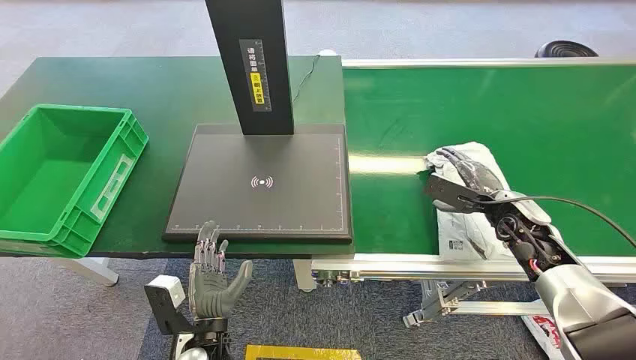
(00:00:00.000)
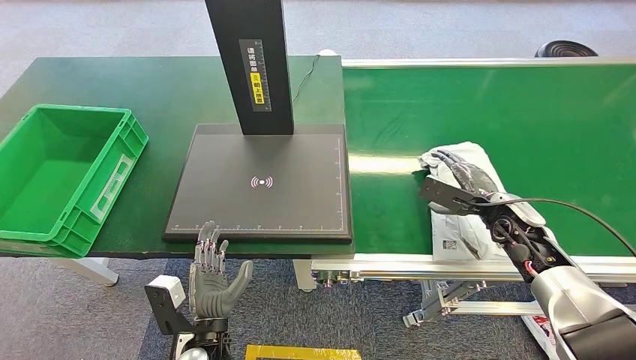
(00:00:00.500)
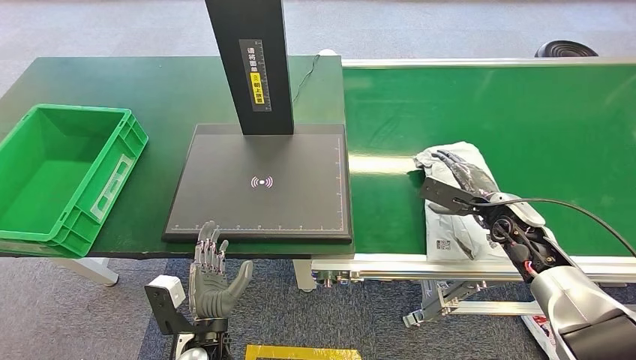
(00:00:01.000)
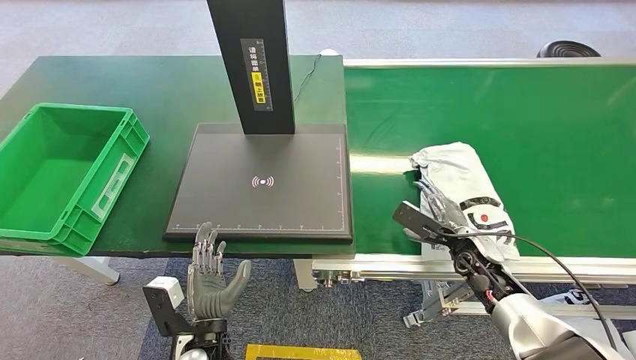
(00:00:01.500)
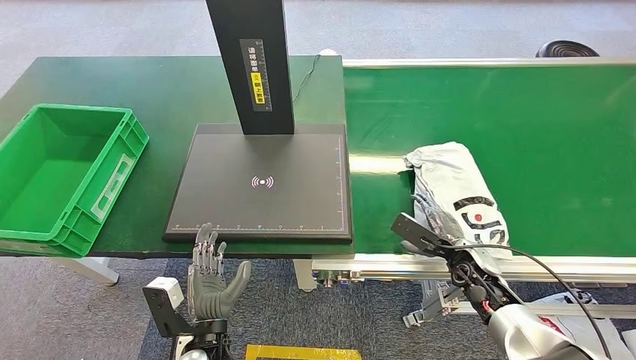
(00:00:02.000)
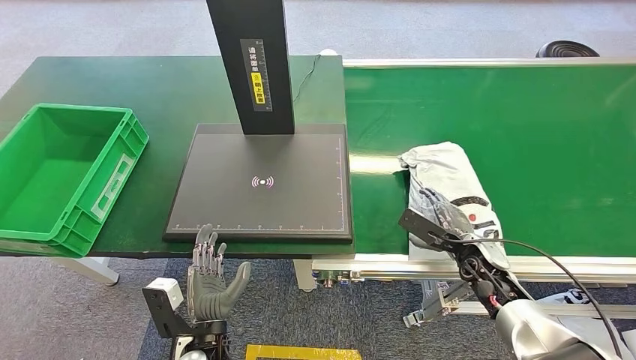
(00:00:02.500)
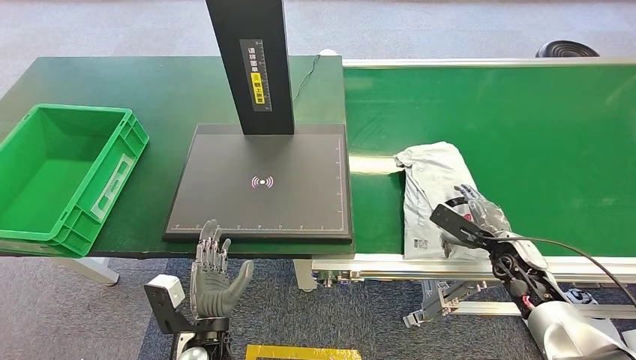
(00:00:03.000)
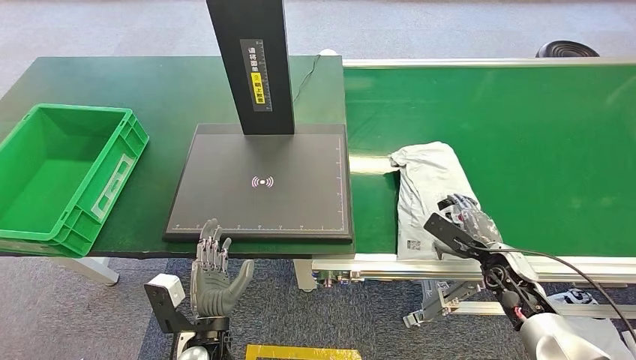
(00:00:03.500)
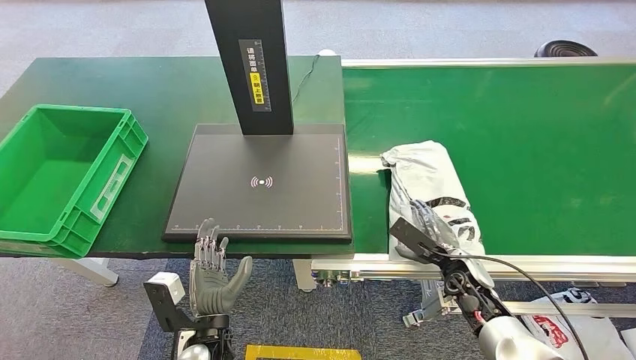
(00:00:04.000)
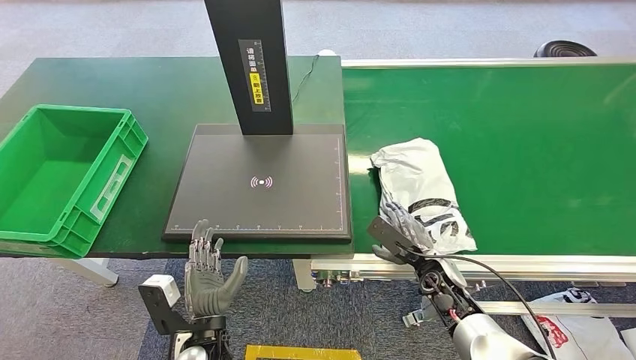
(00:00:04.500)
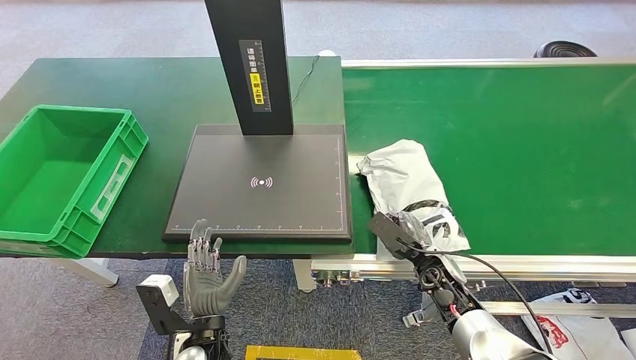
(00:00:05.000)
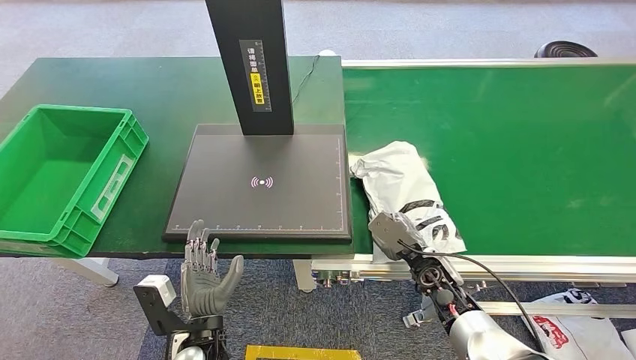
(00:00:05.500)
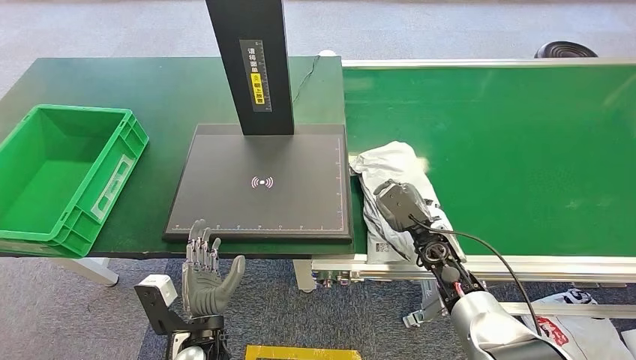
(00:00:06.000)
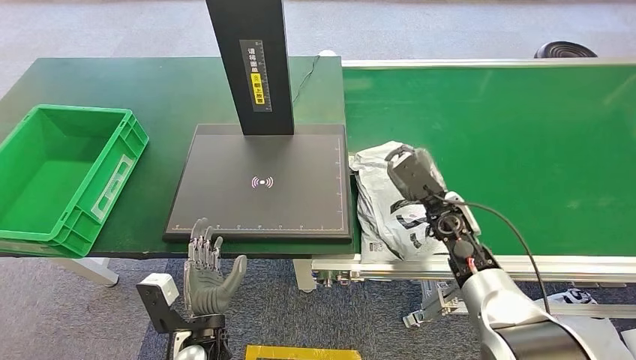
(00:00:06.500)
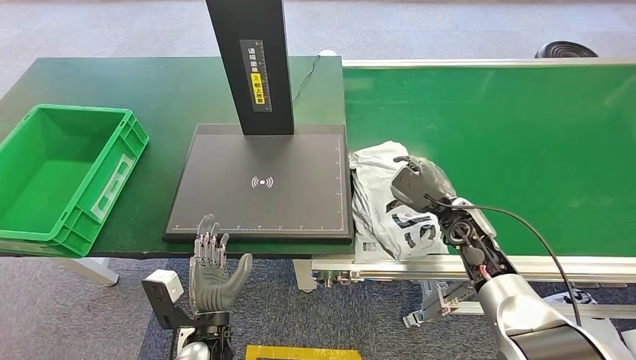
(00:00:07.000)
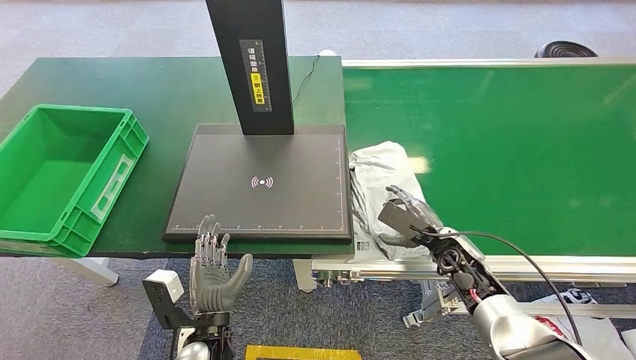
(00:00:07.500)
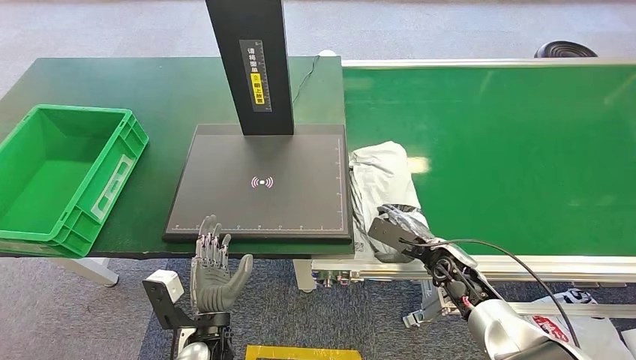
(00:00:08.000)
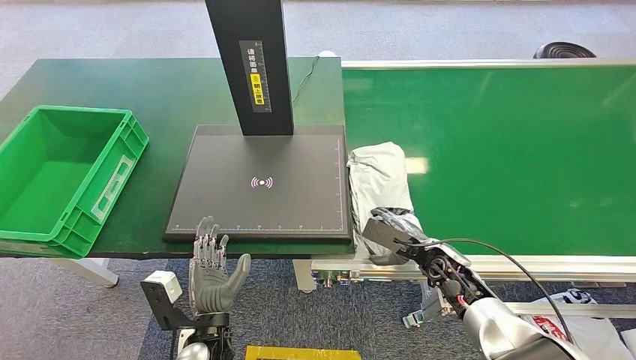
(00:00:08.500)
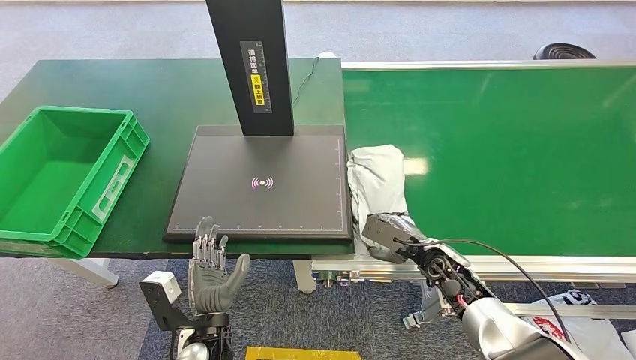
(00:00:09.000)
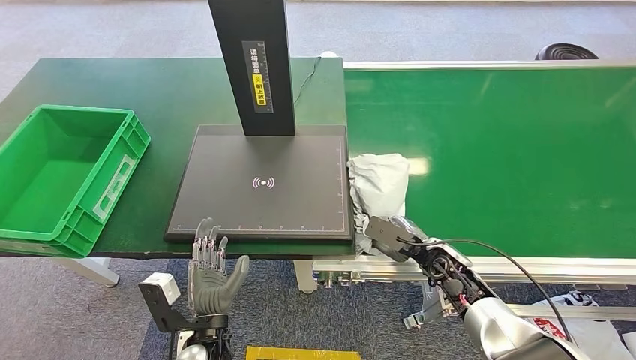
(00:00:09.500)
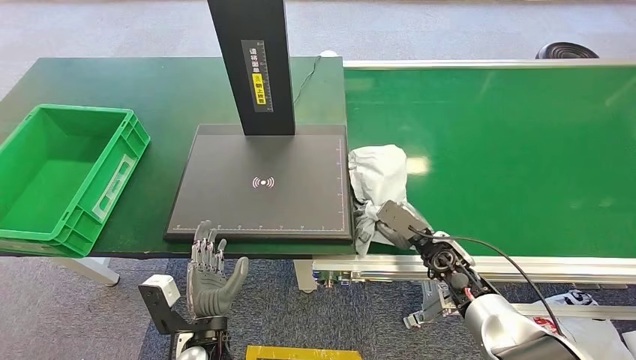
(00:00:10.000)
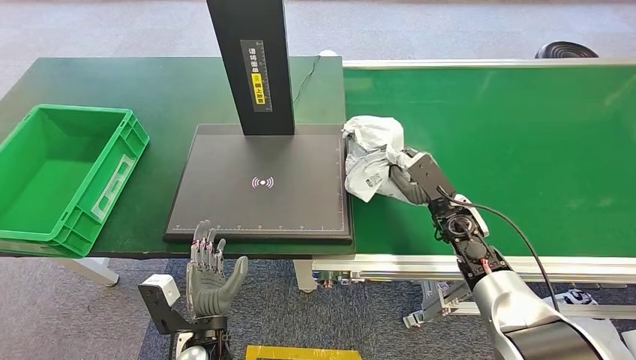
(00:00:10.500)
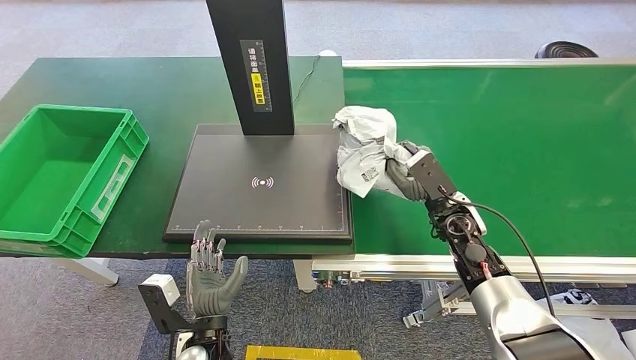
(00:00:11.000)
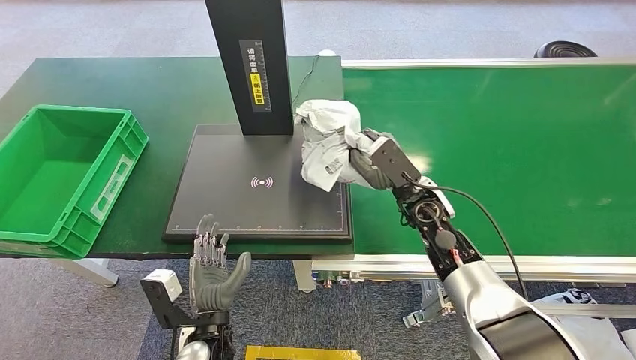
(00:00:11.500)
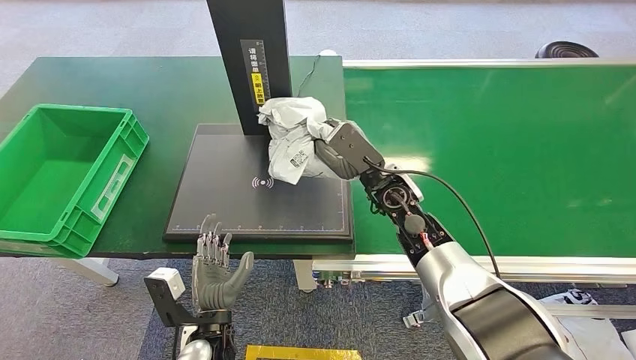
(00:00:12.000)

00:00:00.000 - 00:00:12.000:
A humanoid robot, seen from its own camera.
Step, 00:00:00.000 - 00:00:10.500: Pick up the package from the conveyor belt.
00:00:02.000 - 00:00:04.000: The right hand moves roughly 5 cm to the right and comes back.
00:00:04.000 - 00:00:06.000: The right hand heads to the left, covering about 5 cm.
00:00:08.000 - 00:00:10.000: There are only small adjustments of the hands.
00:00:10.000 - 00:00:12.000: The right hand travels to the left, upward and forward by roughly 20 cm.

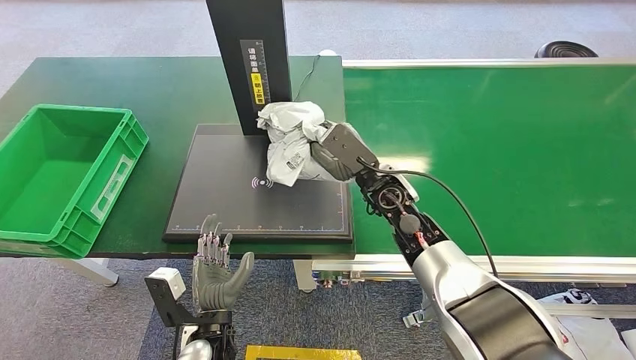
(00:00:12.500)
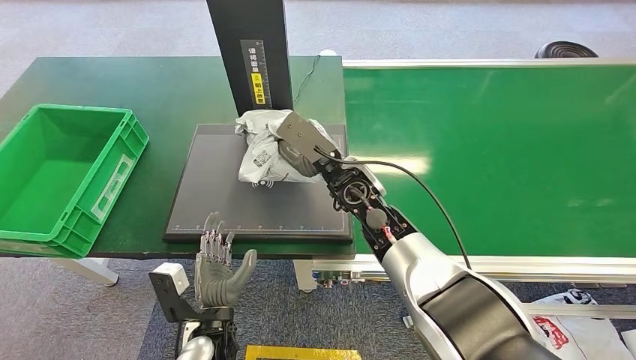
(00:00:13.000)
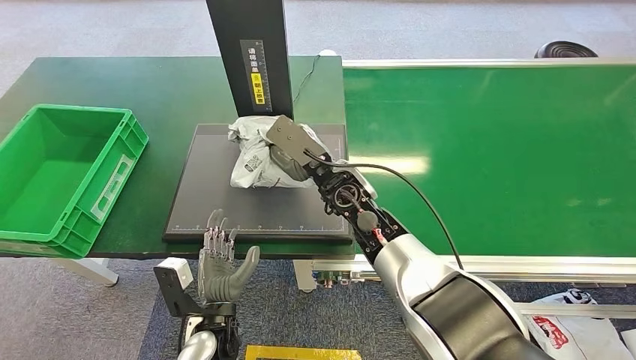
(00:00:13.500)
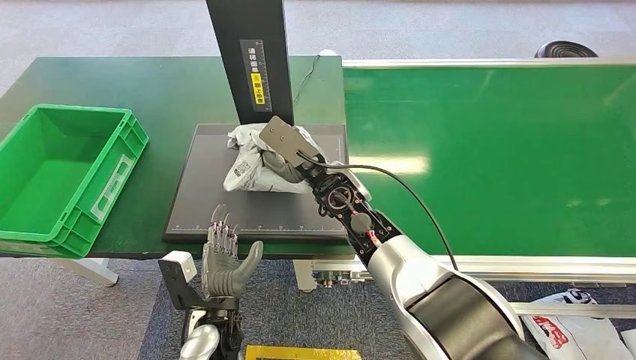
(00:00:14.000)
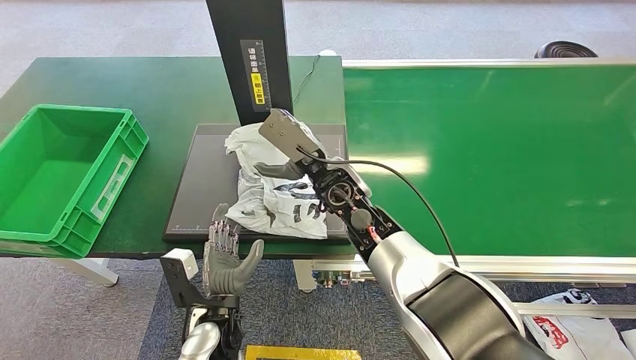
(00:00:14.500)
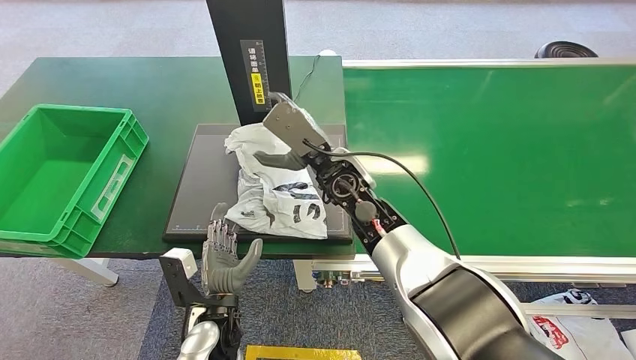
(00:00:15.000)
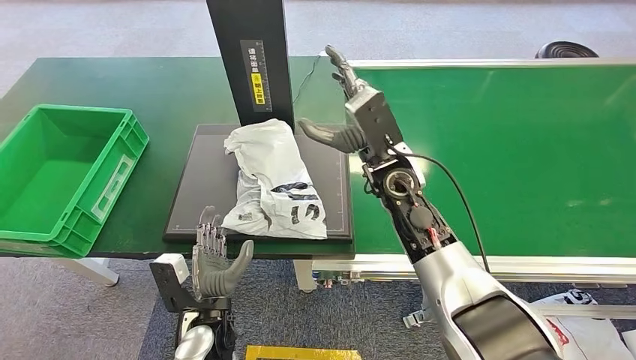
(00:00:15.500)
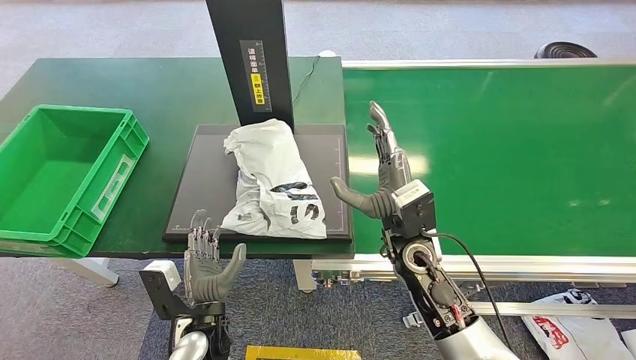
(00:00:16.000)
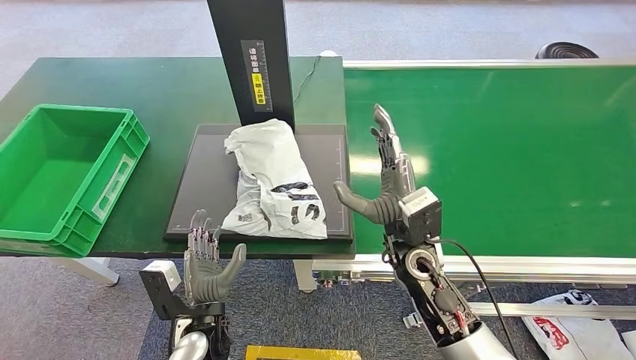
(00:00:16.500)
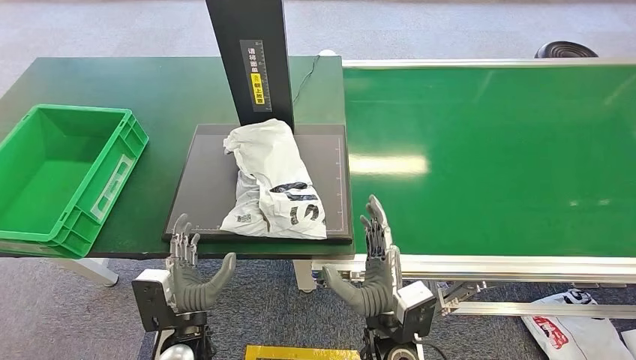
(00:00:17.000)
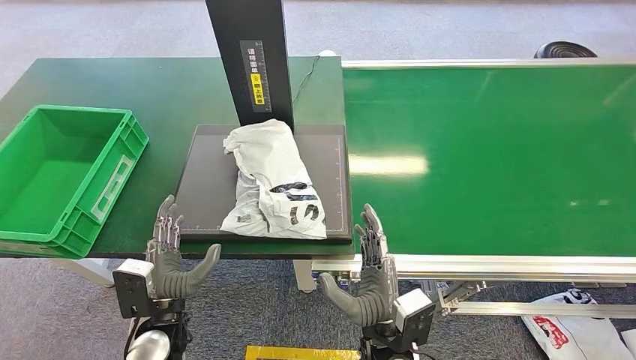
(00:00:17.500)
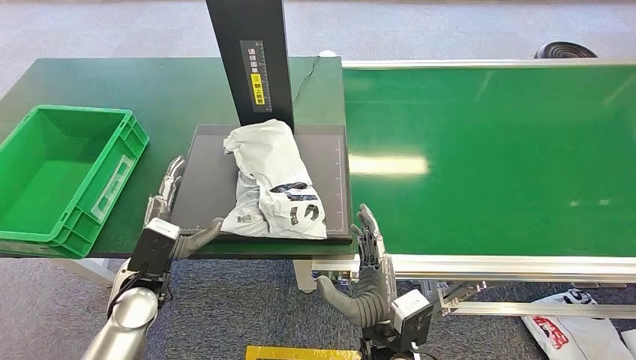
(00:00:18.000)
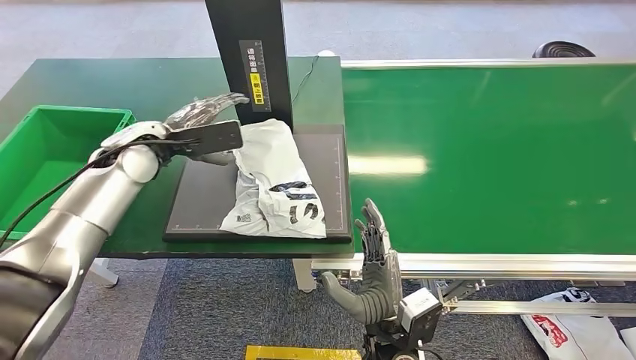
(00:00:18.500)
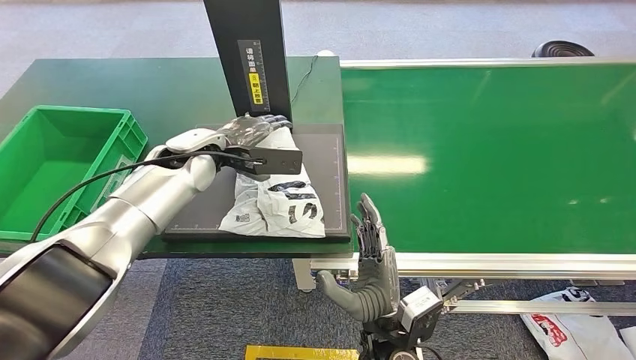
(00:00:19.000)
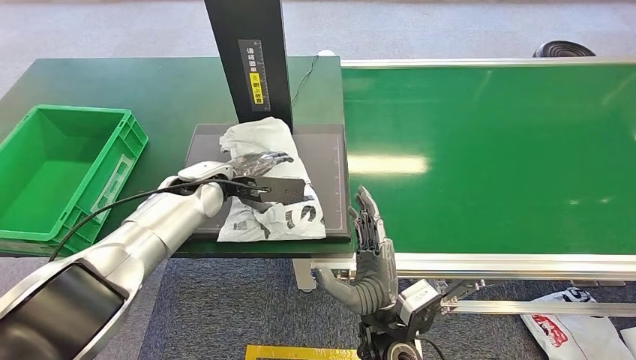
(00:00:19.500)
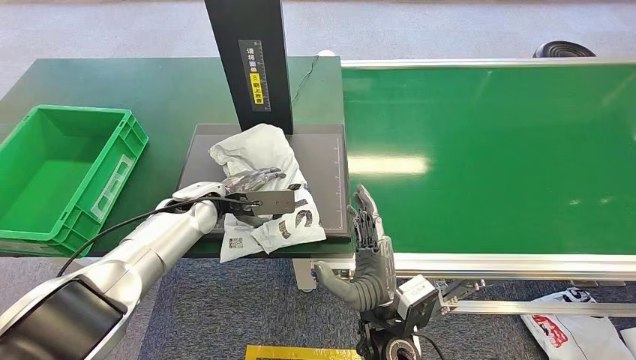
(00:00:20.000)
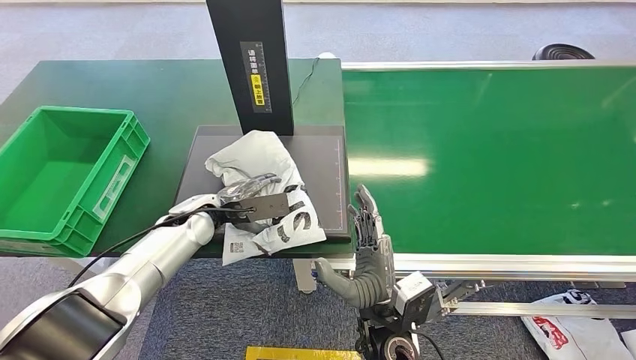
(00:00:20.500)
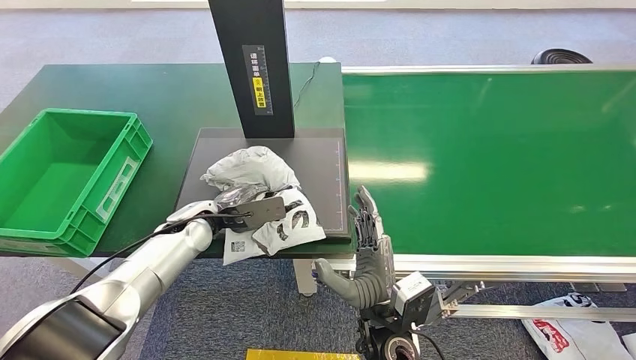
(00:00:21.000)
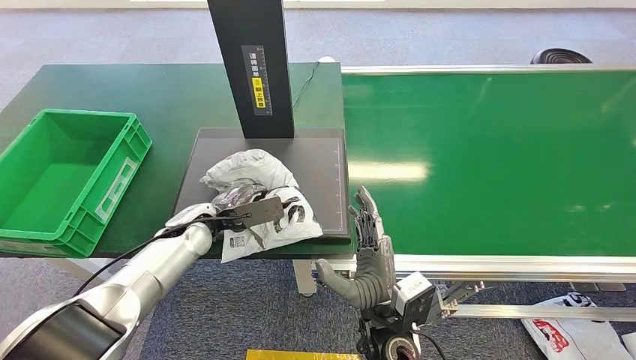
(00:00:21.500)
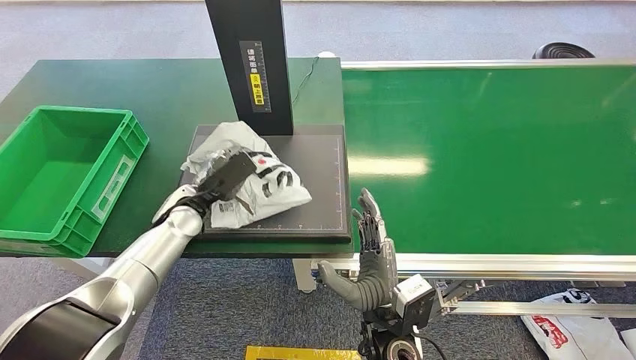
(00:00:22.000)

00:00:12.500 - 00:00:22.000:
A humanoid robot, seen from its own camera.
Step, 00:00:12.500 - 00:00:15.000: Place the package onto the inbound machine.
00:00:12.500 - 00:00:14.500: The right hand heads to the left, covering some 10 cm.
00:00:14.500 - 00:00:16.500: The right hand heads to the right and backward, covering about 15 cm.
00:00:16.500 - 00:00:18.000: The right hand shifts roughly 15 cm backward and downward. Meanwhile the left hand is displaced to the left, forward and upward by roughly 15 cm.
00:00:18.000 - 00:00:20.000: The left hand heads forward, covering roughly 15 cm, and travels upward and back again, about 15 cm each way.
